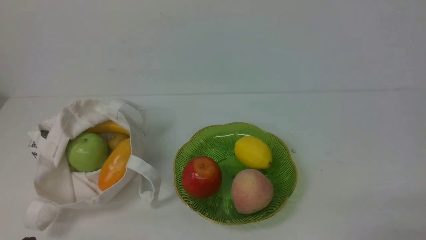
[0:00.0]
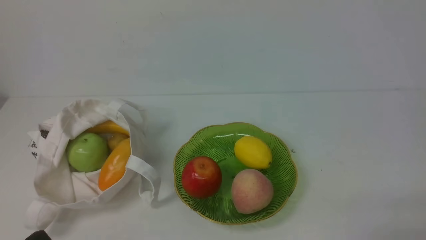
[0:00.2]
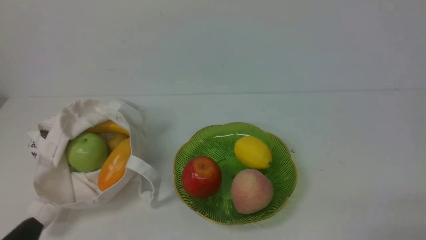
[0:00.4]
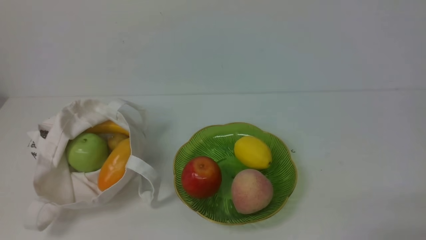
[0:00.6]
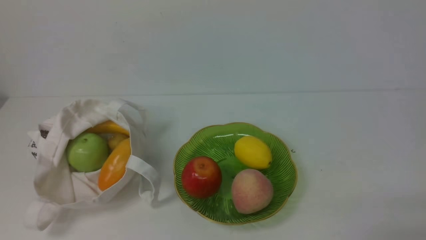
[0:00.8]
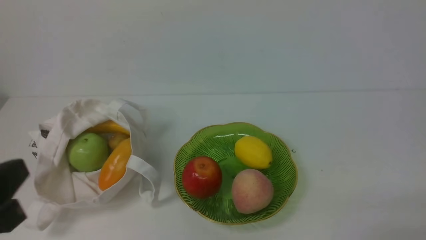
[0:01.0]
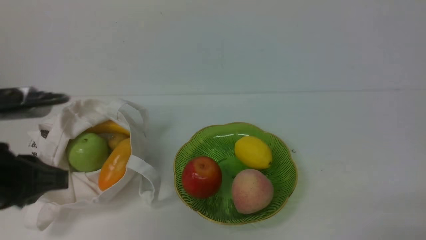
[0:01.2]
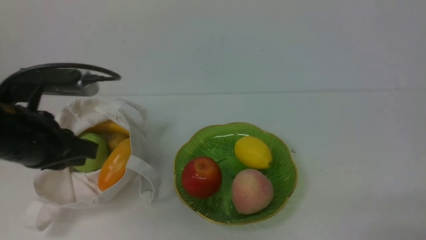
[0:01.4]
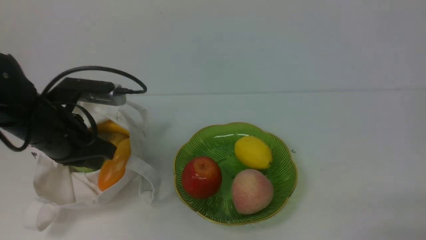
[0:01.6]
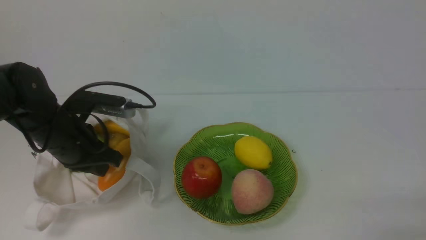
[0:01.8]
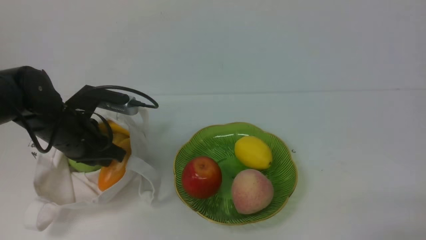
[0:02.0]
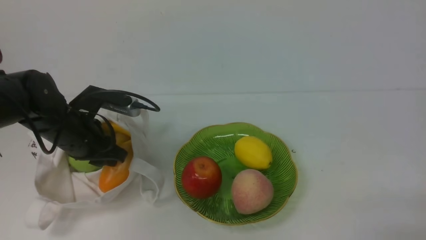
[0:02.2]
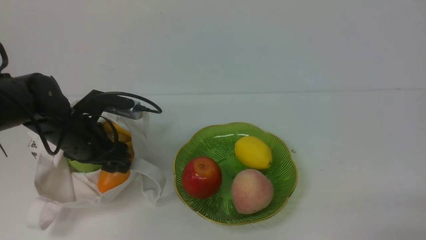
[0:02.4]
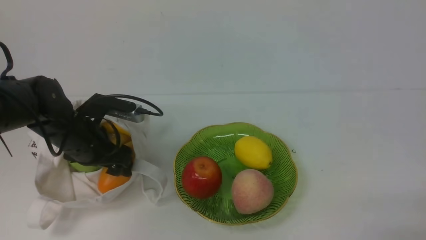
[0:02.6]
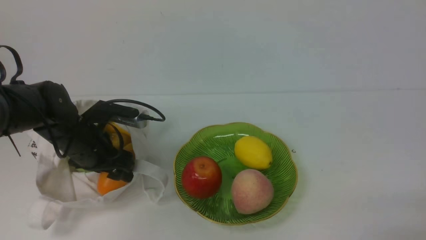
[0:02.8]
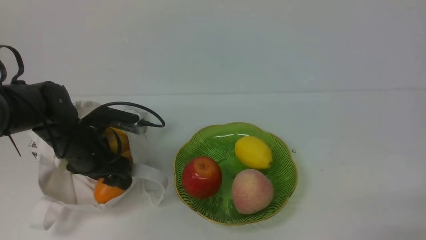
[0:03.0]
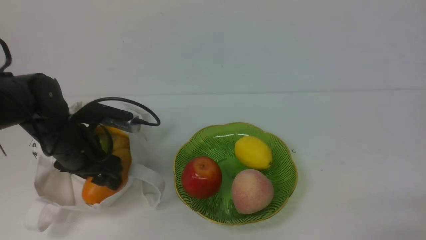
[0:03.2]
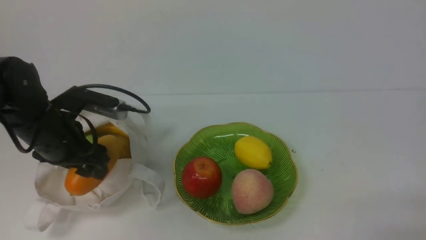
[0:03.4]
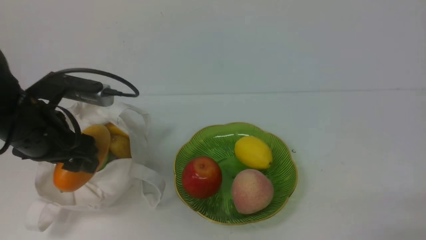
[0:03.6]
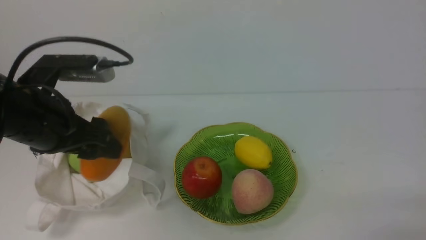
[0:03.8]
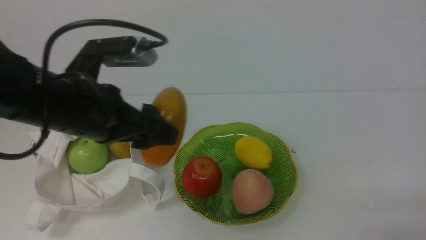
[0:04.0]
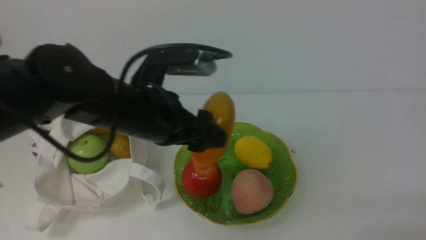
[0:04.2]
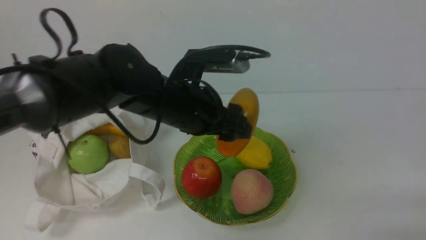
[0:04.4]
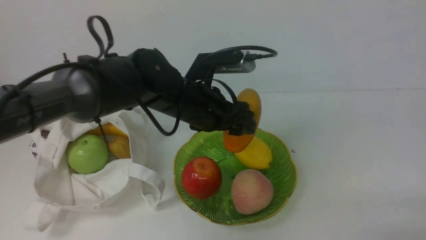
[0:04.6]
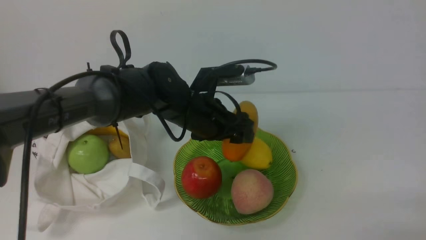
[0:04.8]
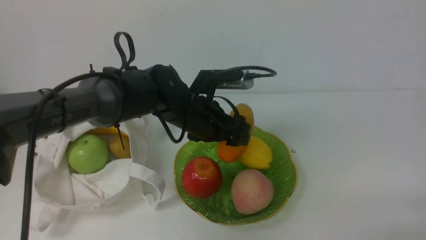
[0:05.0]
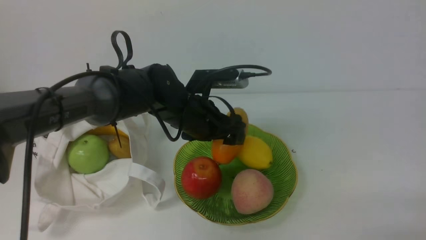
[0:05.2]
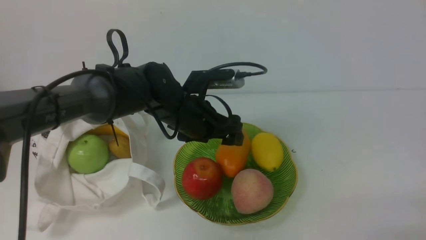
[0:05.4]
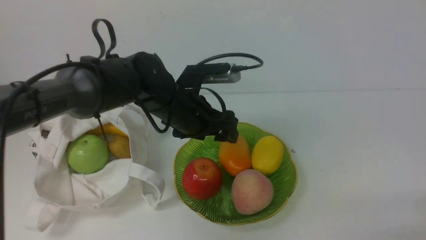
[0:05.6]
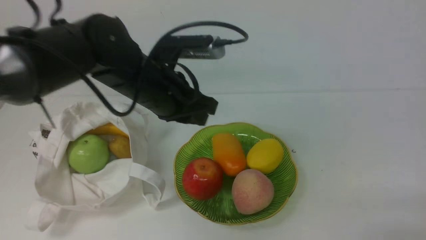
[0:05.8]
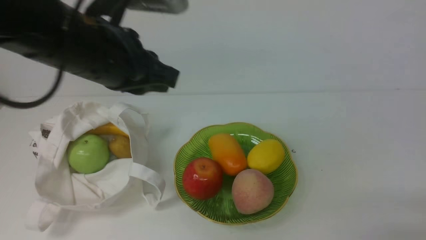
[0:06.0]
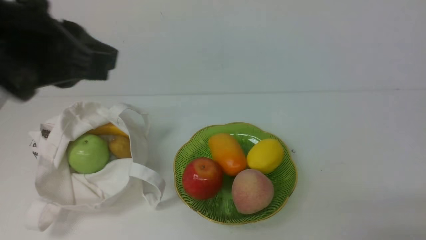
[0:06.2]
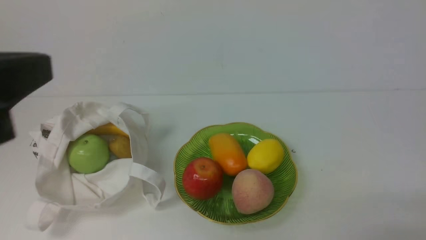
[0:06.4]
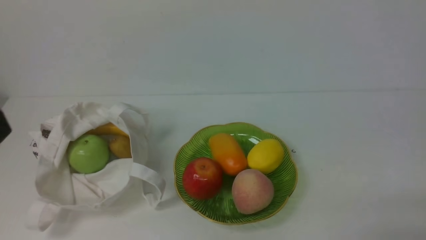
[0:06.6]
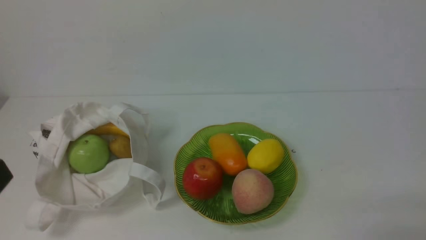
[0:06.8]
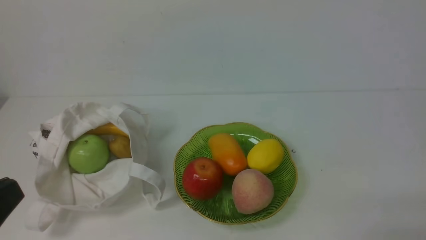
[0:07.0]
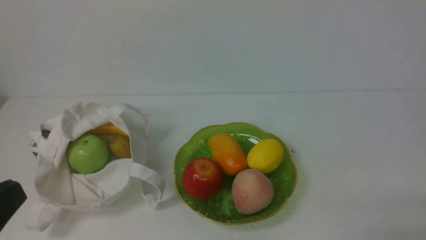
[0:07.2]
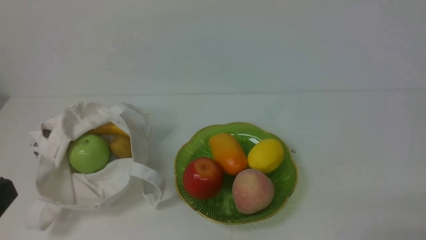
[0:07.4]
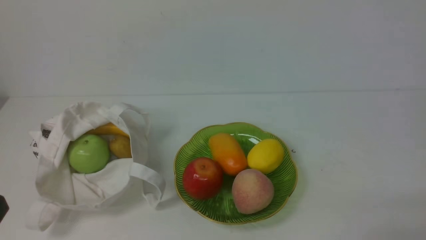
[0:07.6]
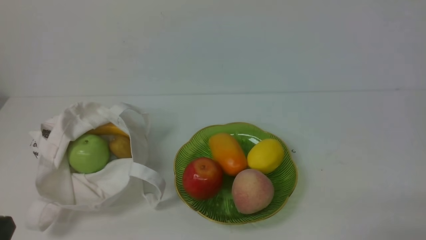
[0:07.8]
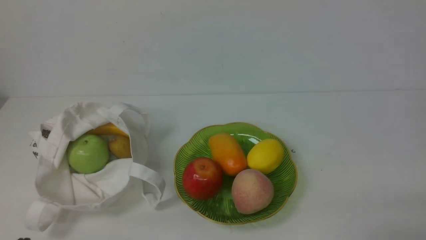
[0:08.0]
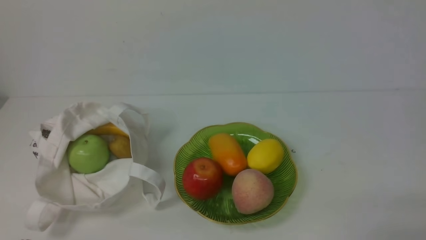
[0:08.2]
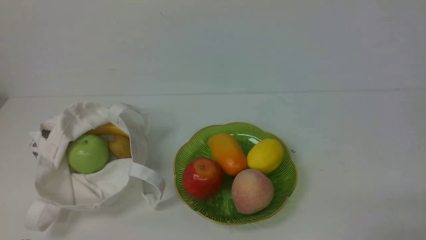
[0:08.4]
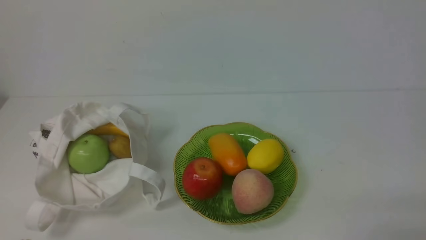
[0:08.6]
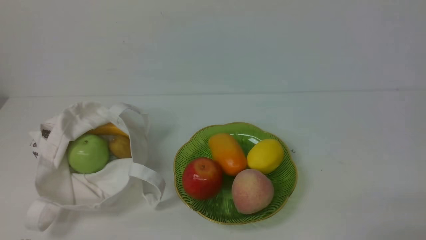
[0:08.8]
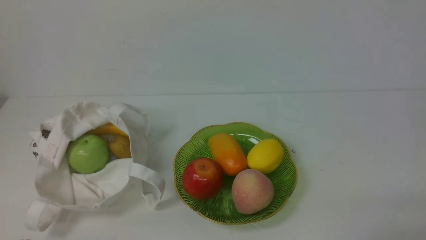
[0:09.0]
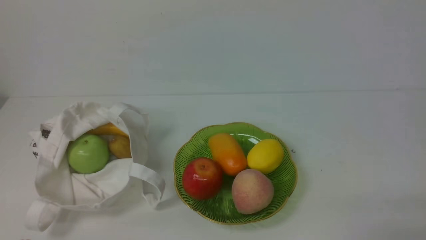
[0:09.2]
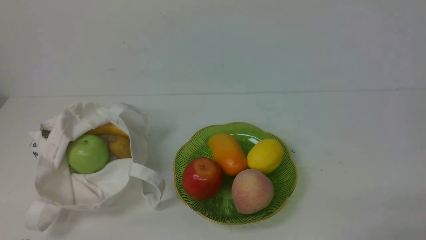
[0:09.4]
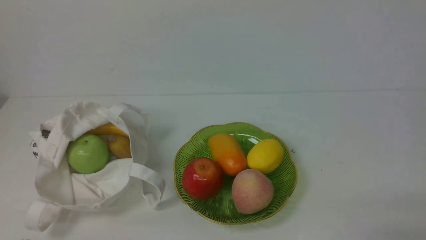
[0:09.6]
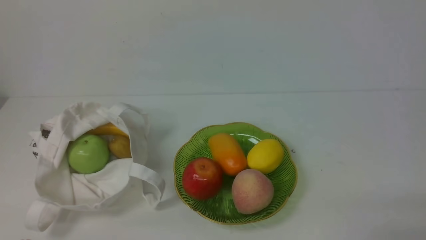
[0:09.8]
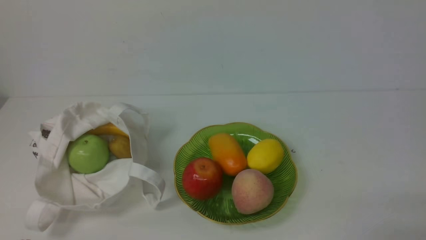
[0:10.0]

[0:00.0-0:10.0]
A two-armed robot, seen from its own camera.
Step, 0:00.0 to 0:03.0: use the left arm to grab a mango from the bag.
Step, 0:03.4 to 0:05.4: use the left arm to put the mango into the empty plate on the right.
0:00.0 to 0:01.4: The left gripper moves forward and upward, roughly 20 cm.
0:01.4 to 0:02.8: The left gripper is displaced downward and forward by approximately 15 cm, and opens up.
0:02.8 to 0:04.2: The left gripper is displaced to the right and upward by roughly 15 cm.
0:04.2 to 0:05.8: The left gripper reaches roughly 10 cm downward, then returns, and closes its fingers.
0:05.8 to 0:07.2: The left gripper goes roughly 30 cm backward and to the left.
0:07.2 to 0:08.6: The left gripper moves downward, roughly 15 cm.
0:08.6 to 0:10.0: Neither gripper changes place.
